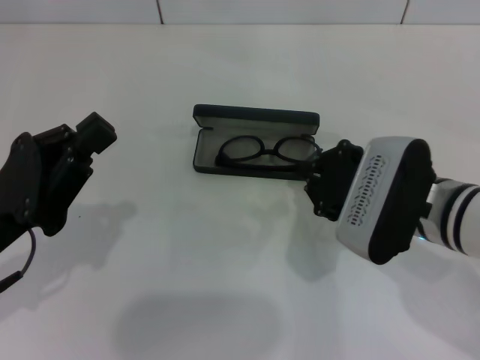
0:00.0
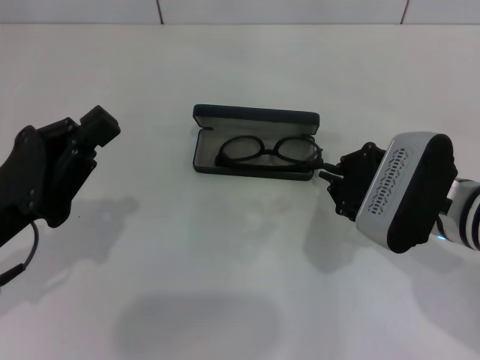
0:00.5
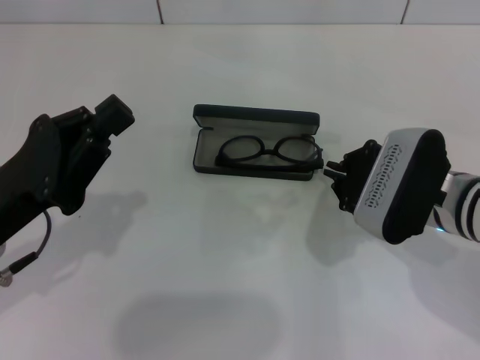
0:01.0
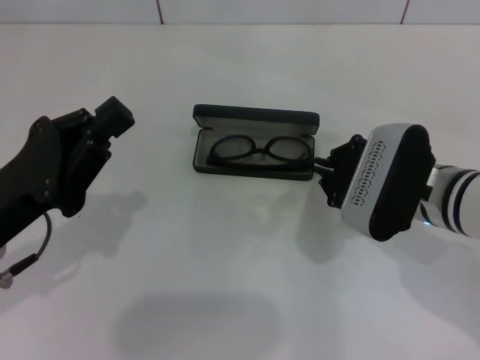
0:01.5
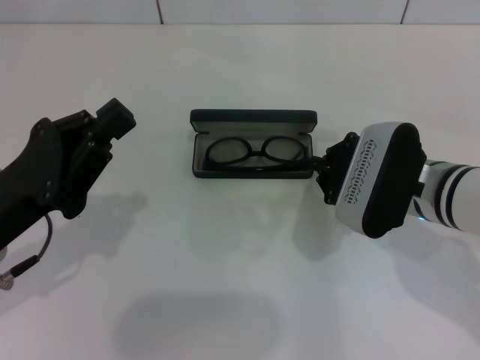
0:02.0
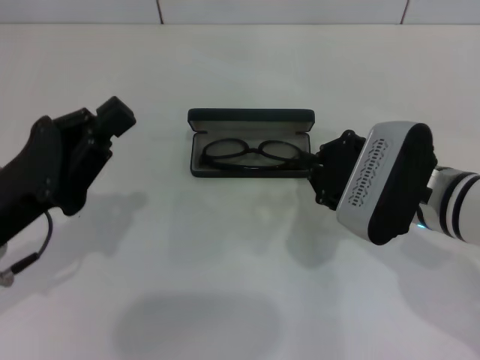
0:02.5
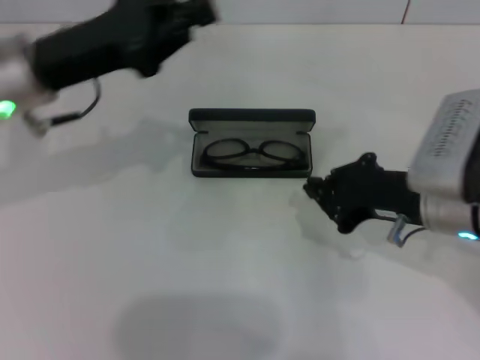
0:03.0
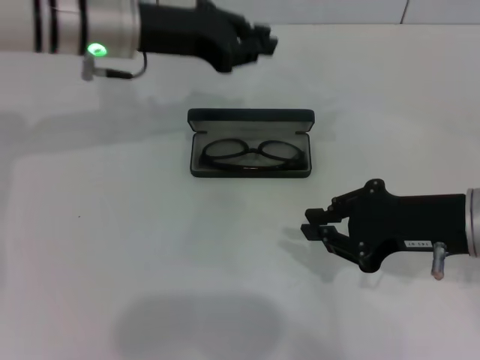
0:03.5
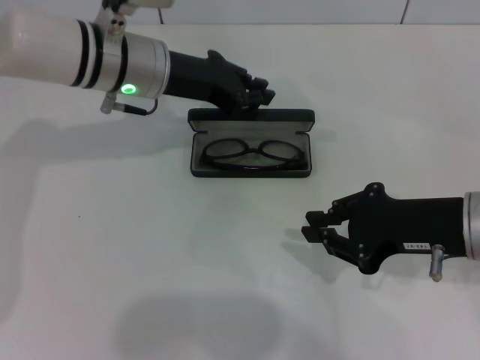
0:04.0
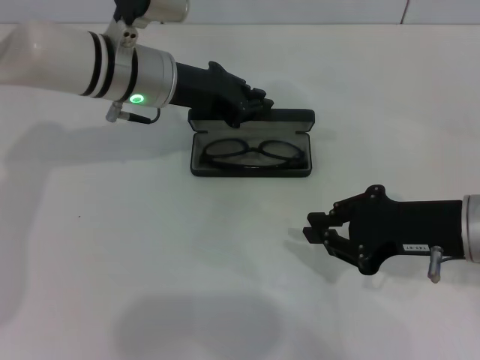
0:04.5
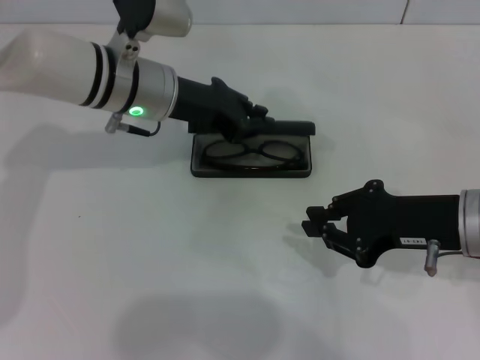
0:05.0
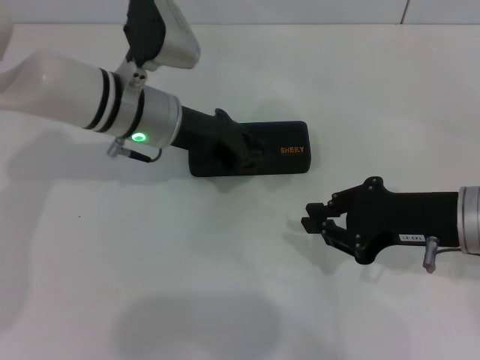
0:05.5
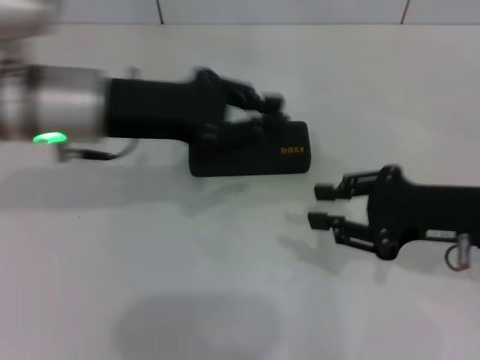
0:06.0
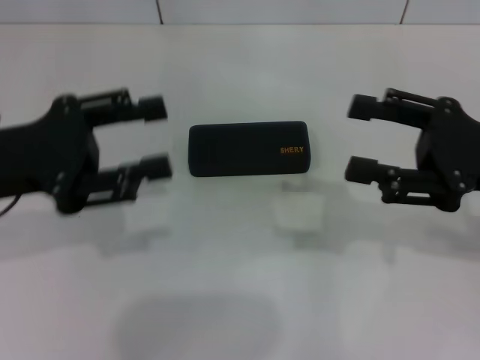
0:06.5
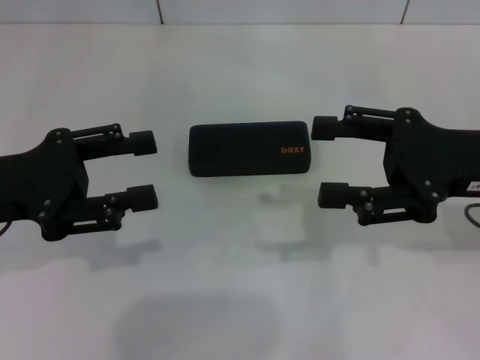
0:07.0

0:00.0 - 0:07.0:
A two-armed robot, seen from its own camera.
Step, 0:00.0 - 0:02.0: Put the glasses into the case with your right hand.
Step, 0:02.5 - 0:05.0: Close the glasses case with your left hand.
0:00.0 - 0:02.0: The grippers stay close to where they were, moving slightly.
0:02.0 - 0:03.5: The left gripper goes about 25 cm forward, to the right and upward, while the right gripper is displaced to the right by about 5 cm.
0:03.5 - 0:05.0: The left gripper travels downward by roughly 5 cm.
0:05.0 - 0:07.0: The right gripper moves roughly 5 cm, and opens up. The left gripper heads backward and to the left, covering roughly 20 cm, and opens.

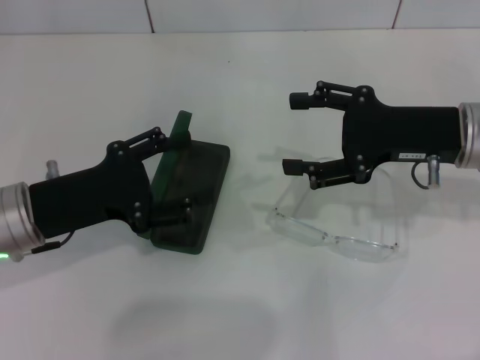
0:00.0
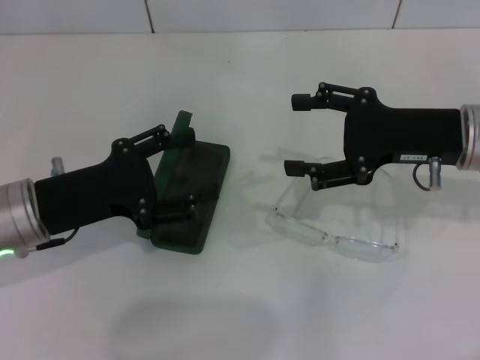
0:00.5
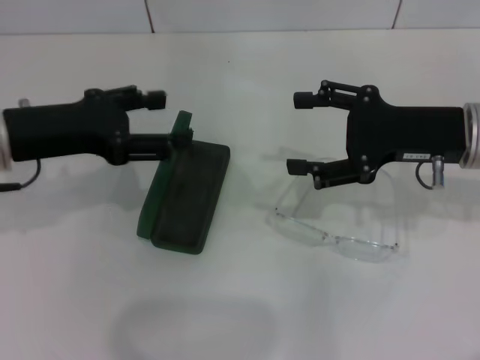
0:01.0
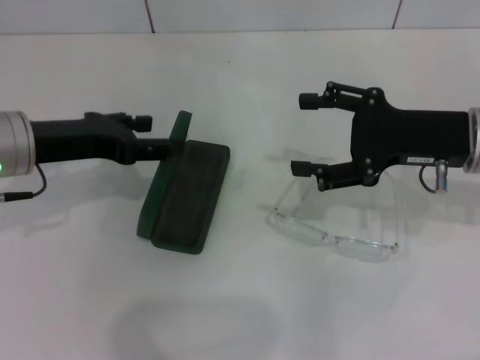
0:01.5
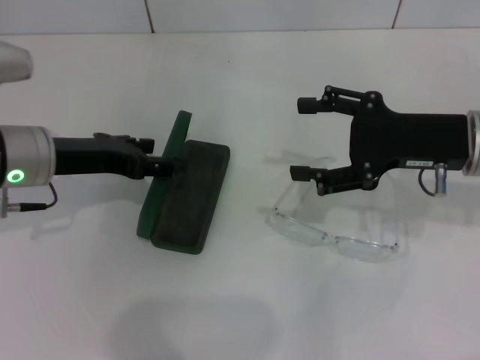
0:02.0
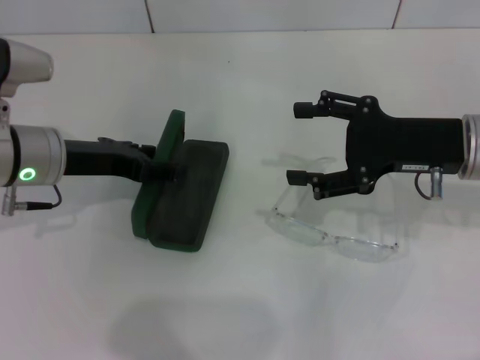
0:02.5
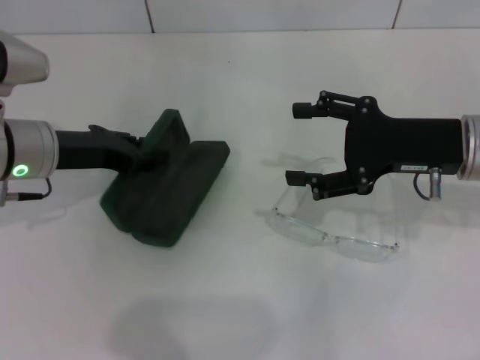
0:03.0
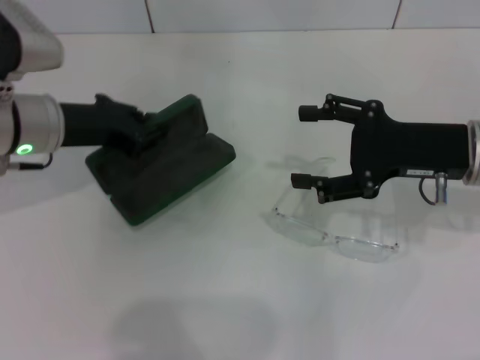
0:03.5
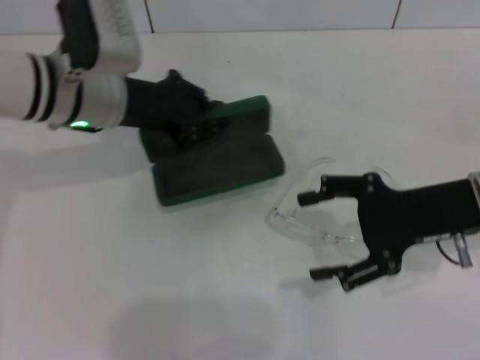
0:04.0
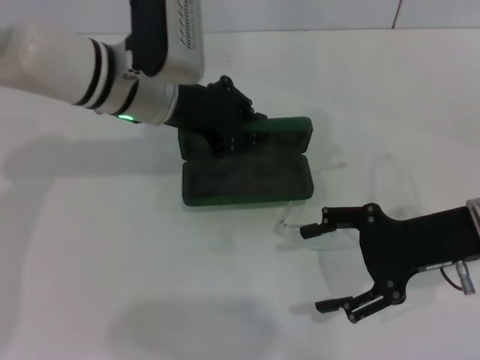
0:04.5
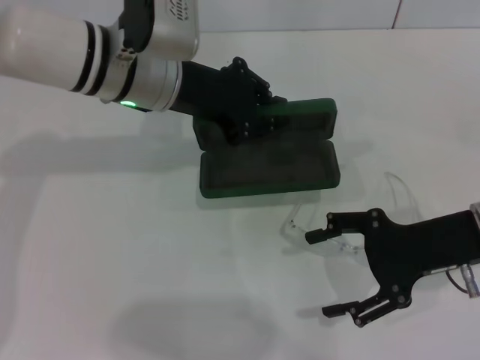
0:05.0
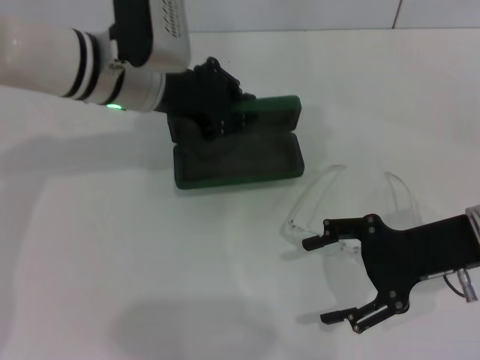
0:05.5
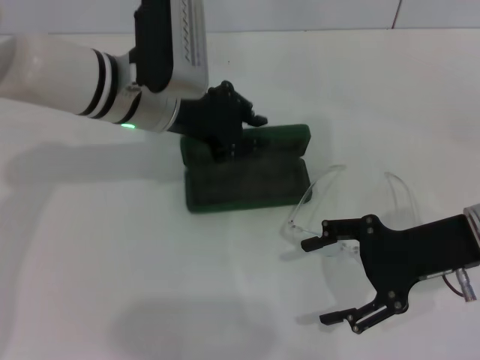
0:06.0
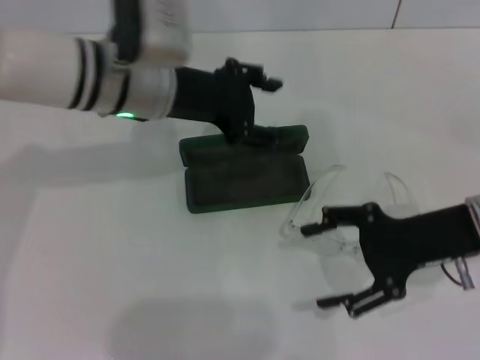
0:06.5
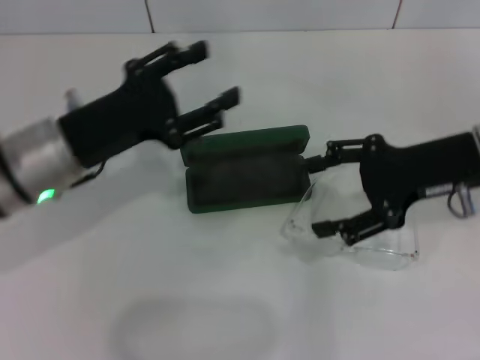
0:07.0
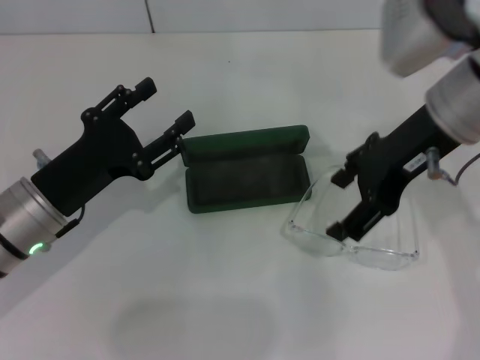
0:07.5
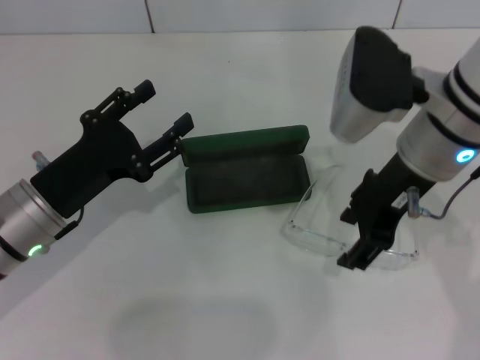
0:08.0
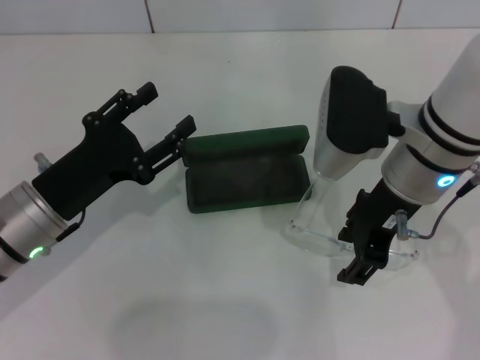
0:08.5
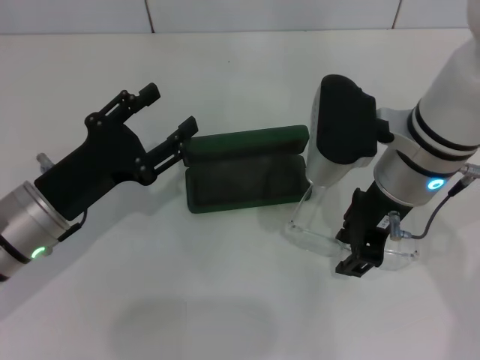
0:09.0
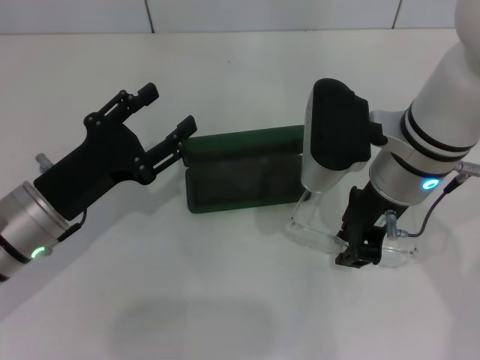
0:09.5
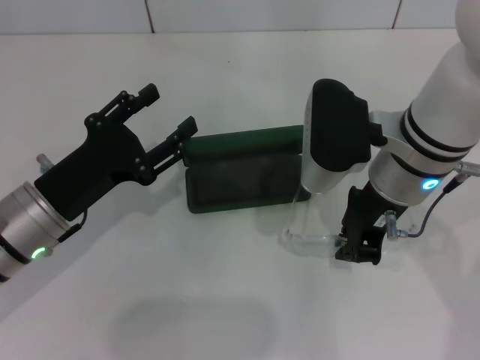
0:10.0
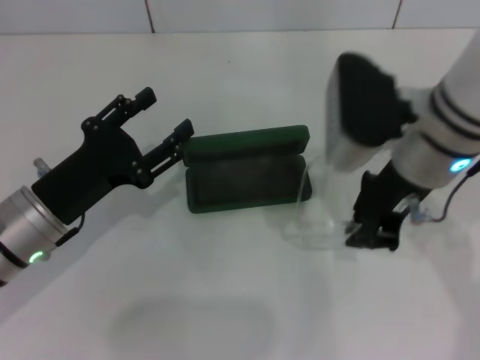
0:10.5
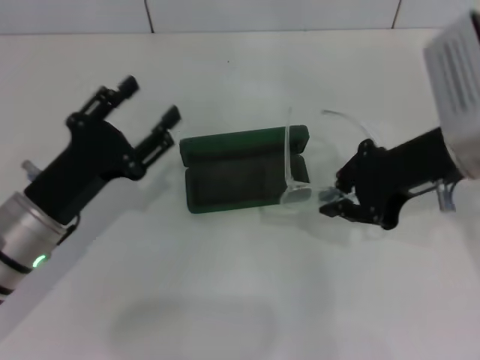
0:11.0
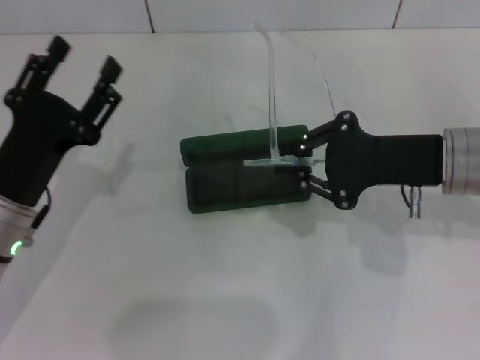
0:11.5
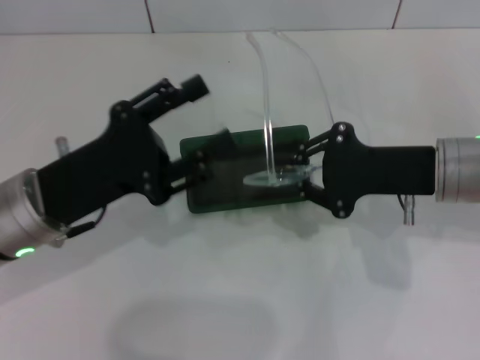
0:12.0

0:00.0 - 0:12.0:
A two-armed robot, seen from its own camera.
Step, 0:00.0 - 0:02.5: Grab the glasses case with your left hand.
Step, 0:03.0 - 0:05.5: Place the glasses case in the center of the table with your left hand.
Step, 0:06.0 - 0:10.0: Grab the eyeglass frame with your right hand.
0:00.0 - 0:02.0: The left gripper goes about 5 cm forward.
0:02.0 - 0:04.0: The left gripper goes some 10 cm to the right and forward, and closes its fingers.
0:06.0 - 0:08.0: The left gripper travels backward, to the left and downward by roughly 20 cm, and opens, while the right gripper goes roughly 15 cm upward and to the left.
0:08.0 - 0:10.0: The right gripper closes its fingers.
0:10.0 - 0:12.0: The right gripper shifts roughly 10 cm to the right.

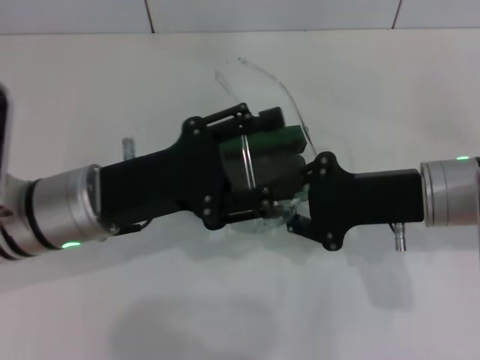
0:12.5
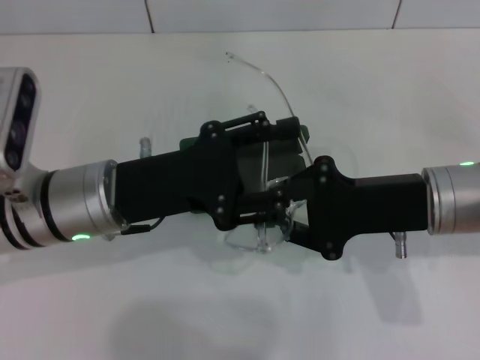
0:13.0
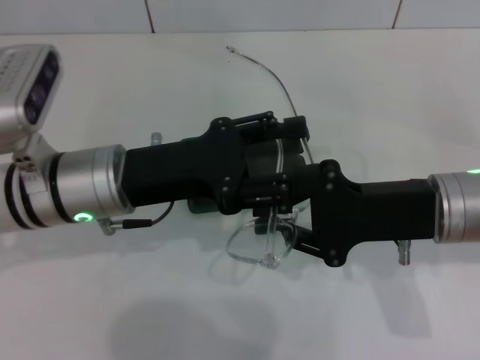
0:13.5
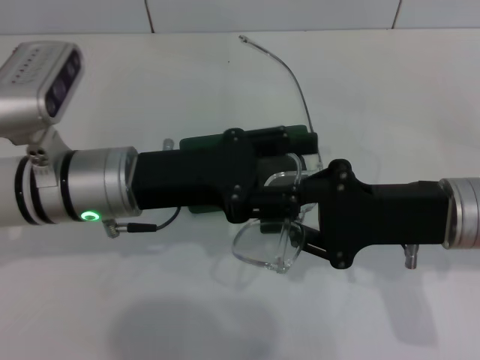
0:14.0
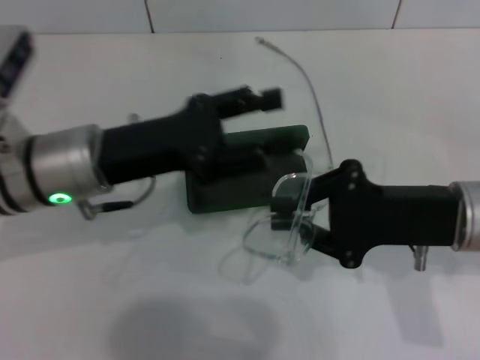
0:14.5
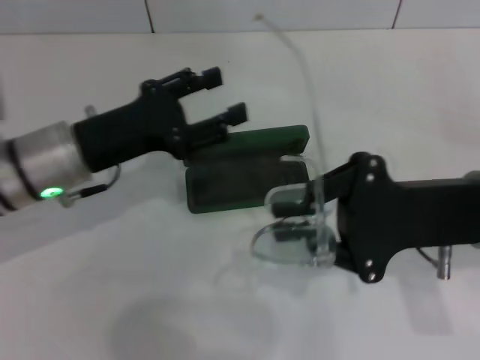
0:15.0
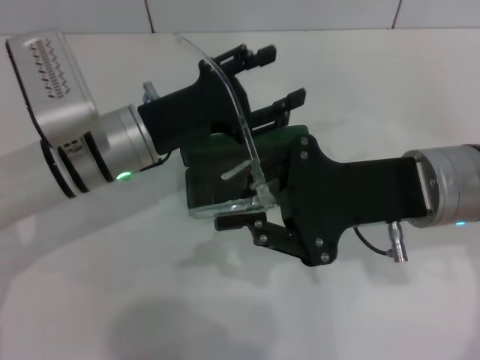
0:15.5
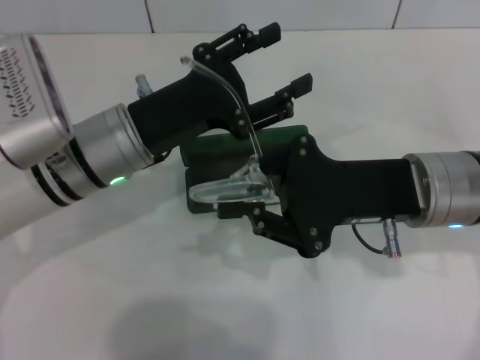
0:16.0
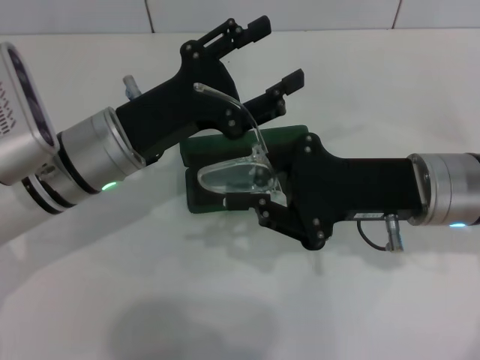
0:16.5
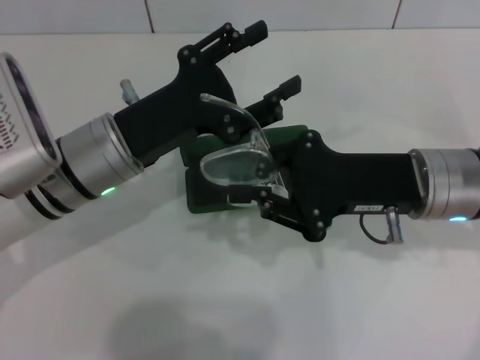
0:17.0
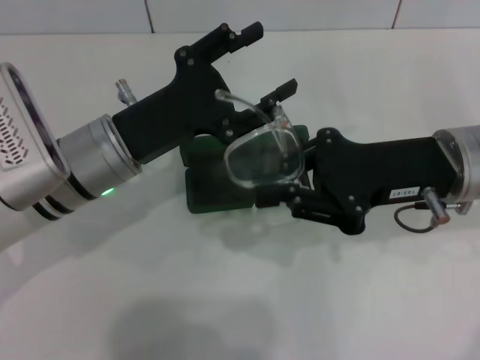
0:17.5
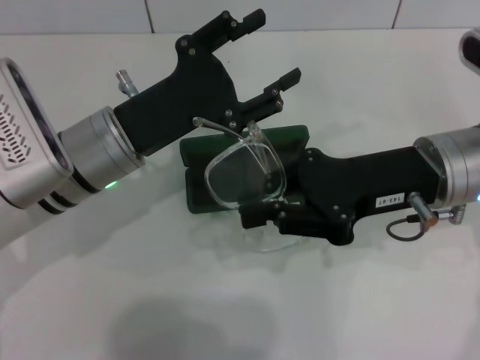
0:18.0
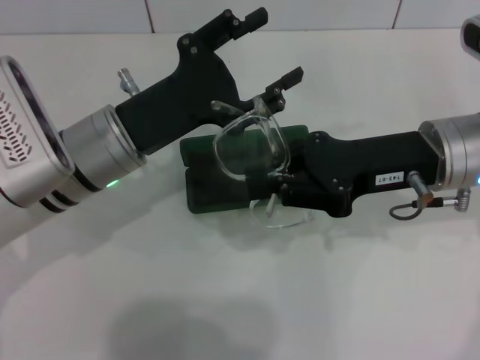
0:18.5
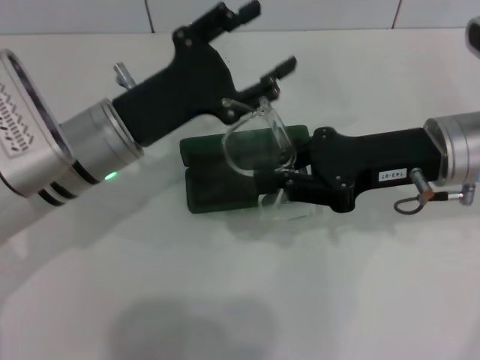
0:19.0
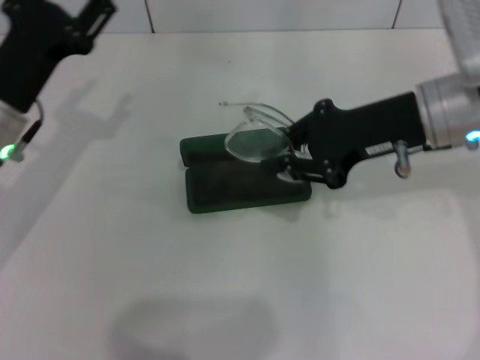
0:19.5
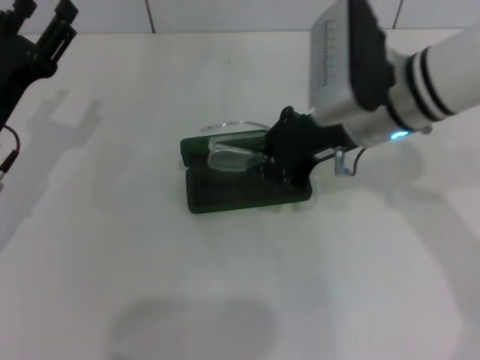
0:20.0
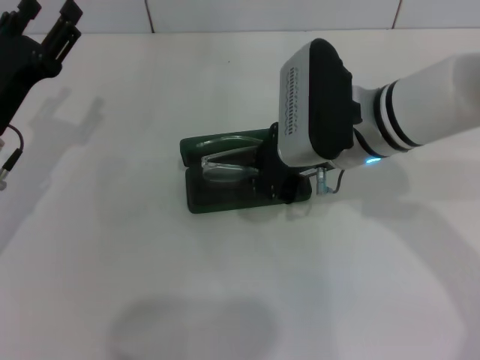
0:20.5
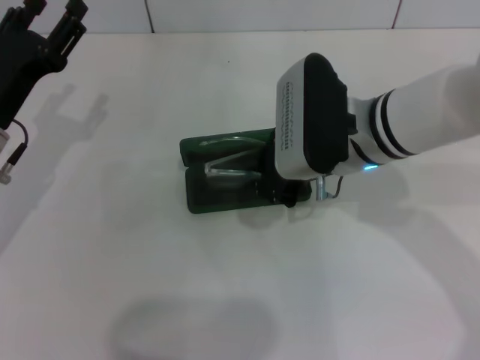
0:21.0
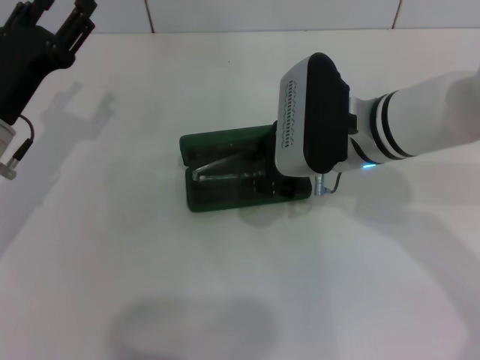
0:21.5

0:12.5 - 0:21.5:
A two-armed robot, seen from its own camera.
Step, 0:12.5 - 0:17.0: Fold the frame with your left hand.
0:17.0 - 0:19.5: The left gripper heads to the left, covering about 10 cm, while the right gripper is displaced forward and upward by roughly 5 cm.
0:19.5 - 0:21.5: The right gripper travels to the left by about 10 cm.
